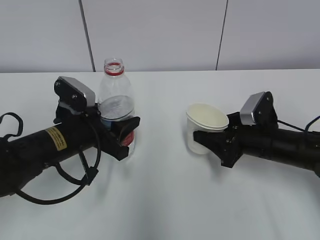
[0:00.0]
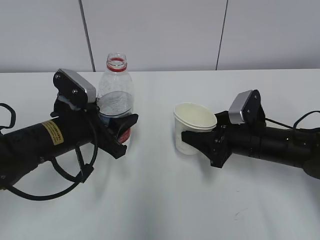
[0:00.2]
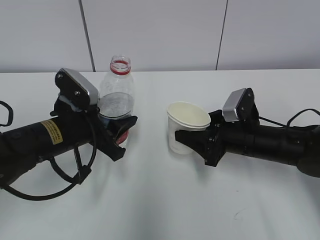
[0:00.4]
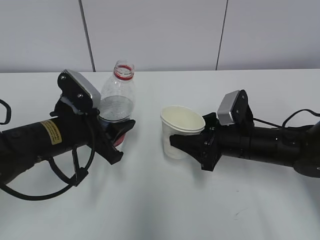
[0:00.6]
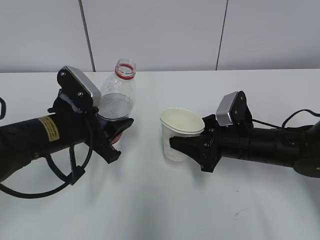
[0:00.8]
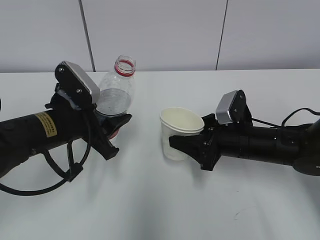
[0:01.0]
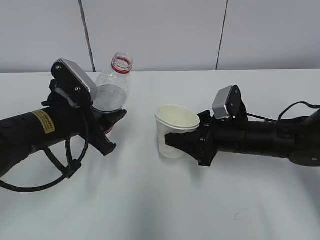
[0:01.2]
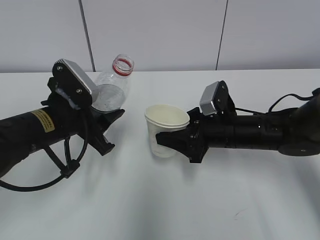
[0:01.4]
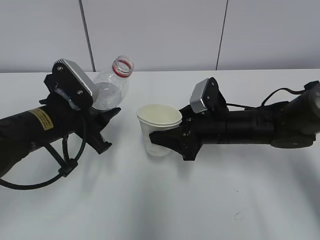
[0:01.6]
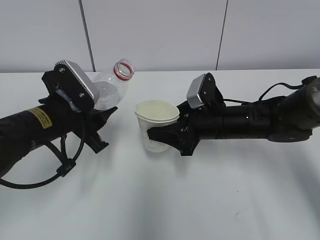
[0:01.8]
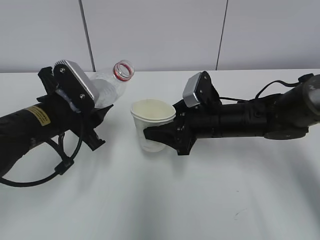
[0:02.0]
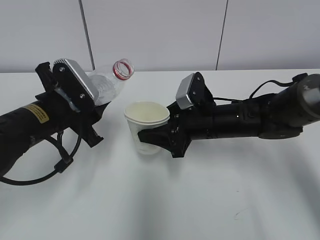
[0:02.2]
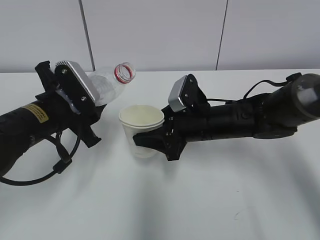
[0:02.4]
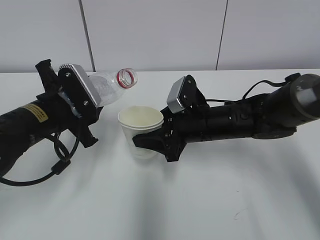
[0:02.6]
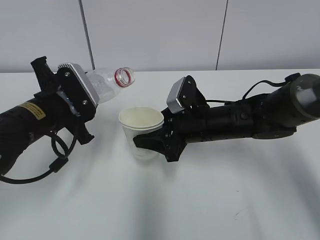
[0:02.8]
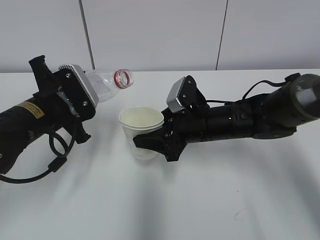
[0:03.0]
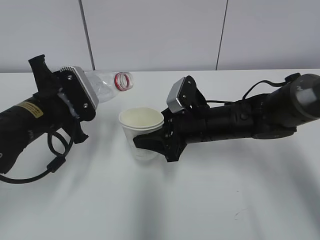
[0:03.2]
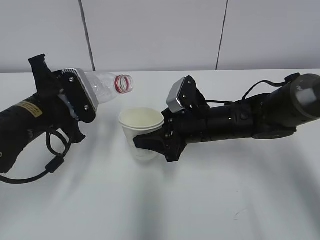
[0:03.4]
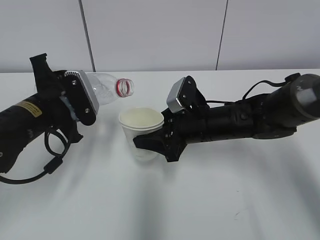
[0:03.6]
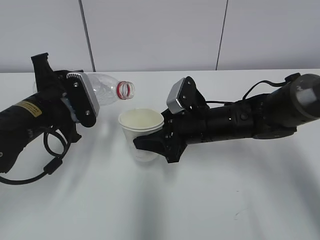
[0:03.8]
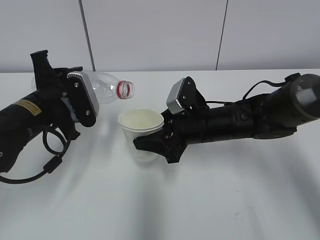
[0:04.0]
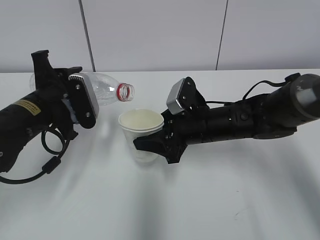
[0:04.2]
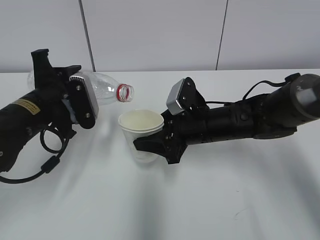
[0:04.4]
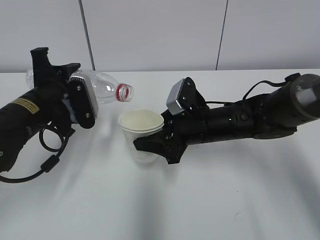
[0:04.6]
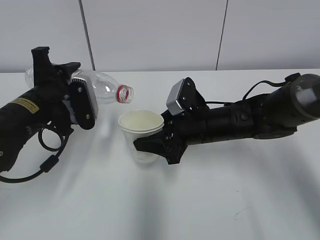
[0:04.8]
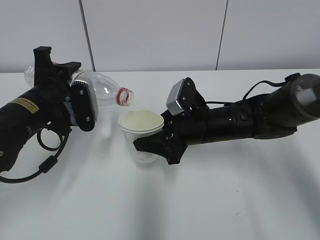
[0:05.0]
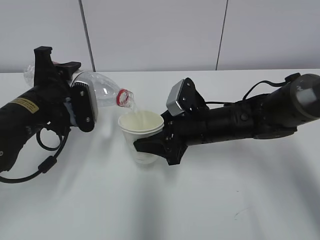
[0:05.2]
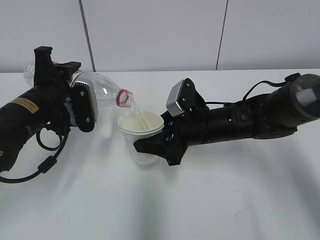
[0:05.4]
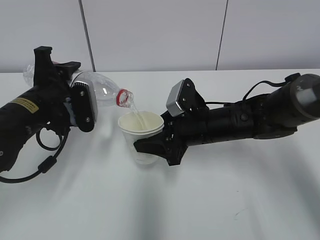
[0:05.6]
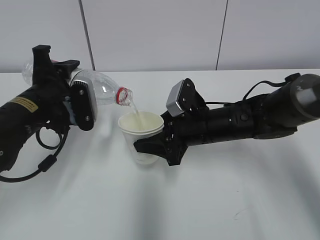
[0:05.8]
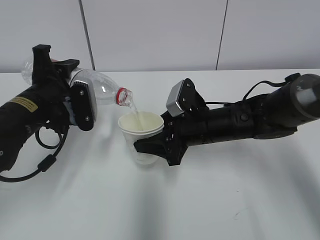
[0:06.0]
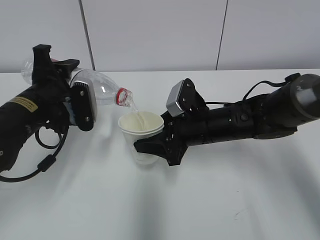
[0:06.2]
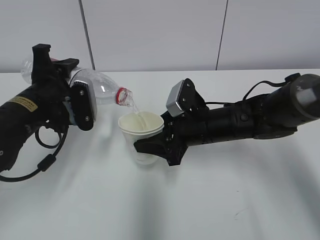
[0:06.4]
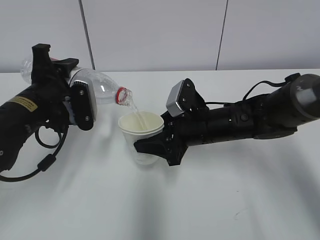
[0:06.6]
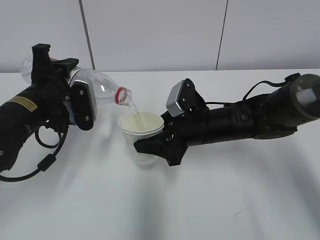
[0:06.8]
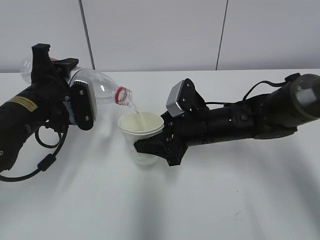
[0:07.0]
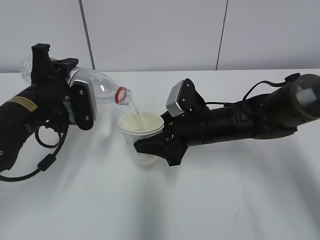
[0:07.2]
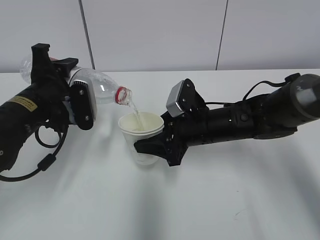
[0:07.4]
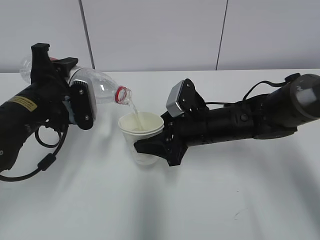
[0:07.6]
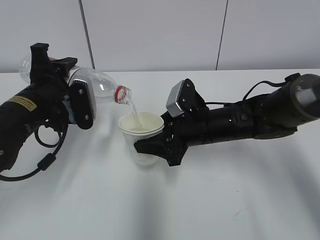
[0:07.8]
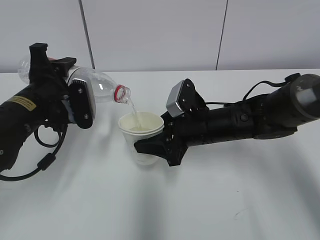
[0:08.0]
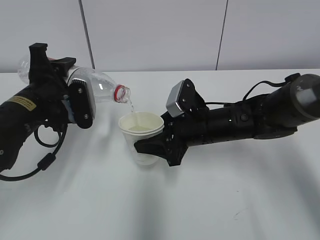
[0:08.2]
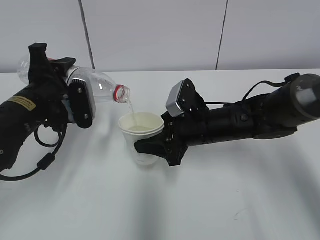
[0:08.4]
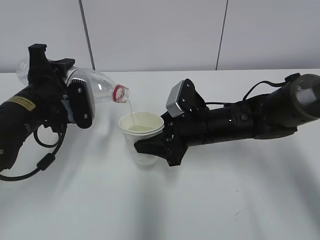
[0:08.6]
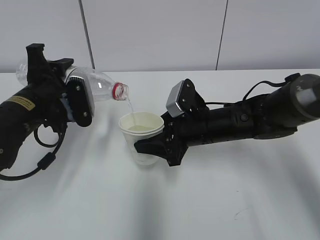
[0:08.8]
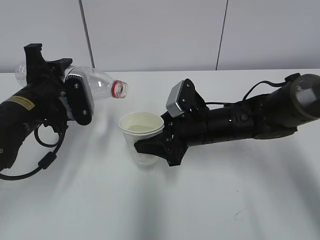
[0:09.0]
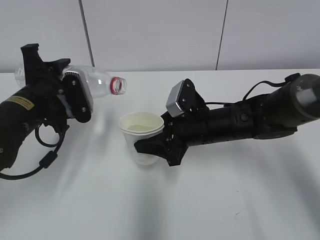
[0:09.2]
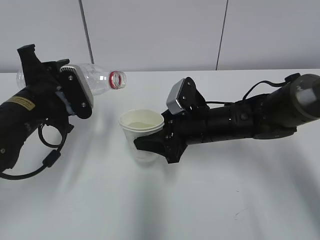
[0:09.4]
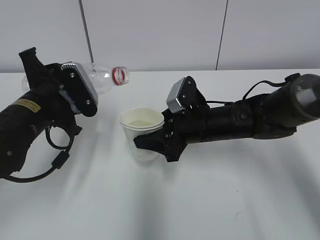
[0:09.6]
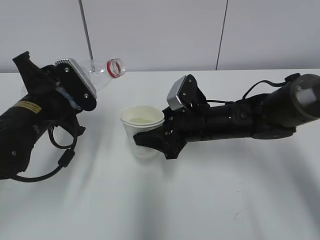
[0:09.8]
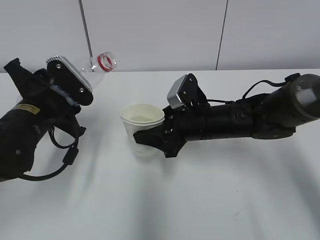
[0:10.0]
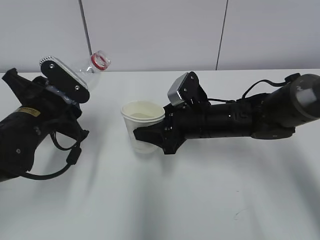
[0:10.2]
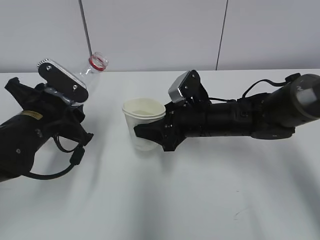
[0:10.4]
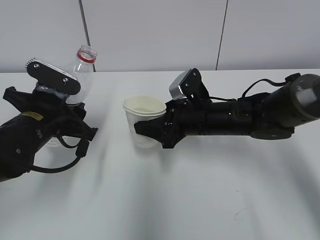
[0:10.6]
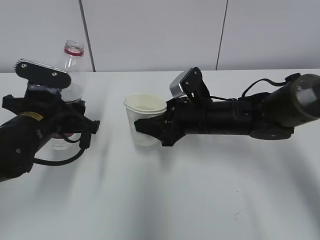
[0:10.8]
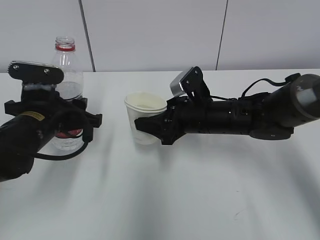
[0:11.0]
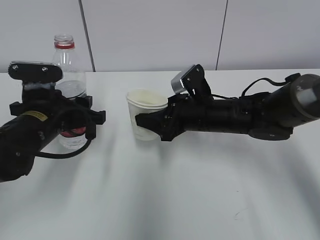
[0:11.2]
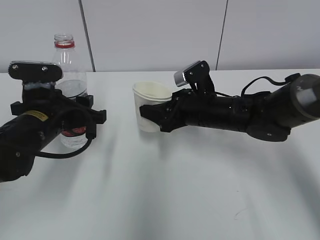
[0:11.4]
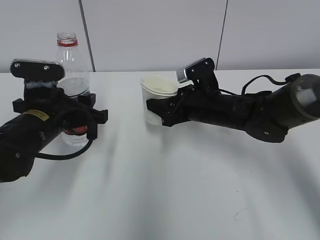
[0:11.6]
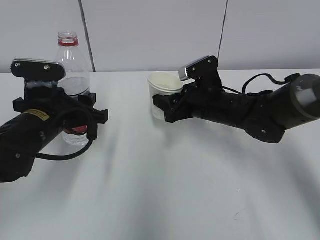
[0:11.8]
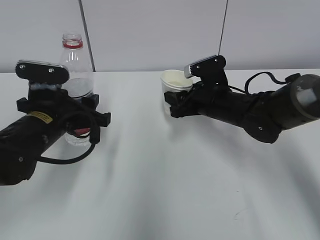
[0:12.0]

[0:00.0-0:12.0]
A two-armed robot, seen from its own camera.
Step, 0:00.0 to 0:02.0: Lift the paper cup with the right hand.
Step, 0:02.2 to 0:05.4: Fill water with the right hand.
Step, 0:02.2 to 0:05.4: Pour water with the left hand.
Step, 0:05.6 to 0:07.0: Collect water with the left hand.
Step, 0:07.2 to 0:10.0: Place the paper cup with the right hand.
0:00.0 to 0:01.6: The right gripper is displaced to the left by about 5 cm.
0:03.0 to 0:04.4: There are only small adjustments of the grippers.
0:04.4 to 0:06.0: The grippers make only small movements.
0:06.0 to 0:07.6: Both grippers stay put.
0:07.6 to 0:09.0: The grippers stay close to where they were, moving slightly.

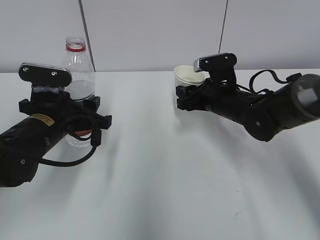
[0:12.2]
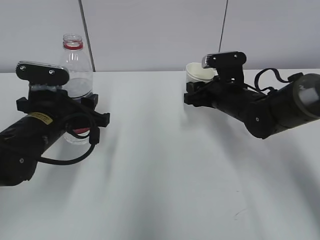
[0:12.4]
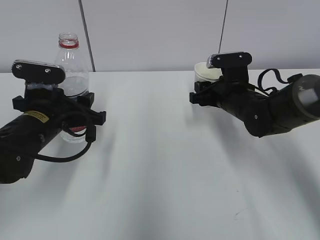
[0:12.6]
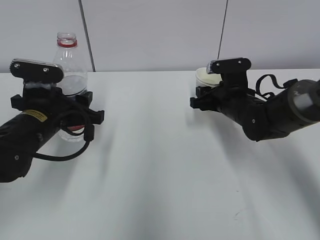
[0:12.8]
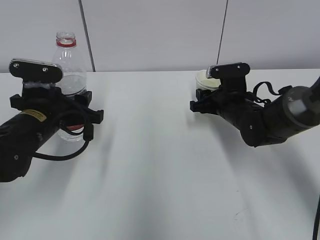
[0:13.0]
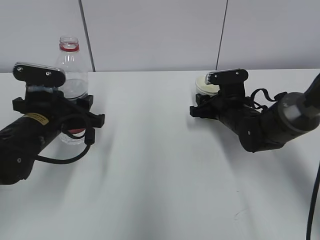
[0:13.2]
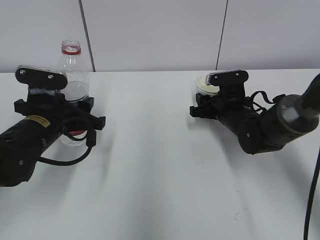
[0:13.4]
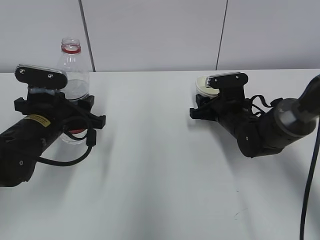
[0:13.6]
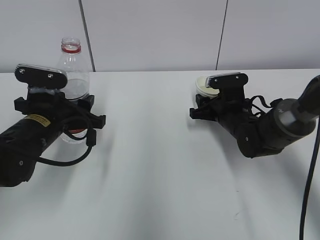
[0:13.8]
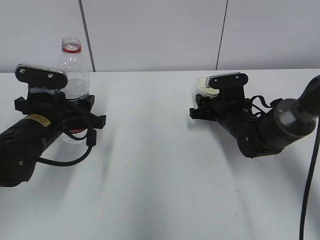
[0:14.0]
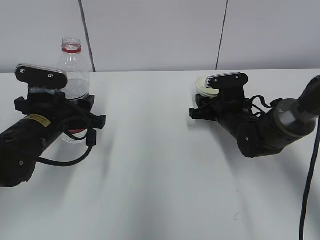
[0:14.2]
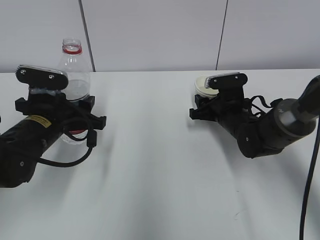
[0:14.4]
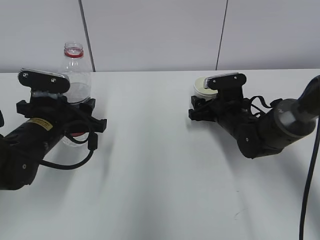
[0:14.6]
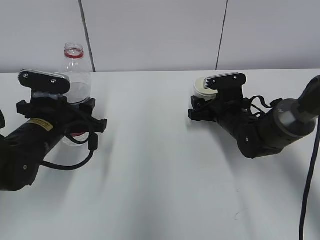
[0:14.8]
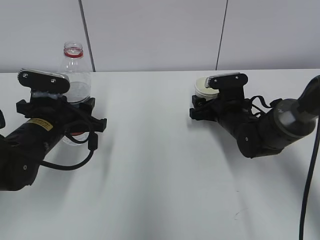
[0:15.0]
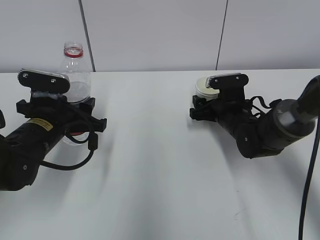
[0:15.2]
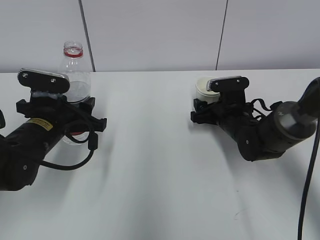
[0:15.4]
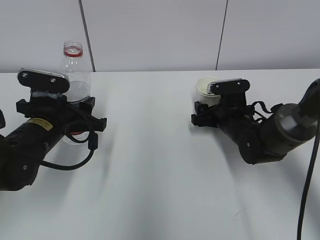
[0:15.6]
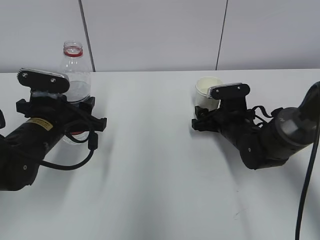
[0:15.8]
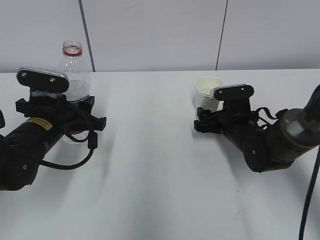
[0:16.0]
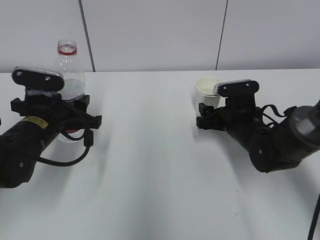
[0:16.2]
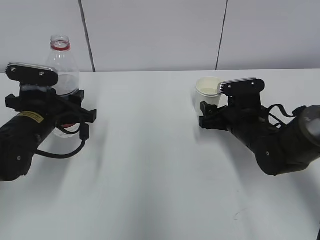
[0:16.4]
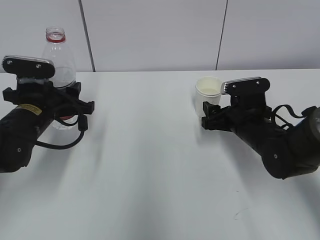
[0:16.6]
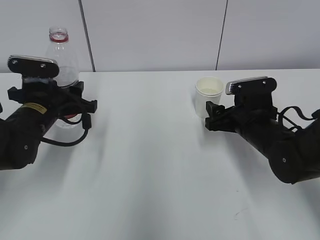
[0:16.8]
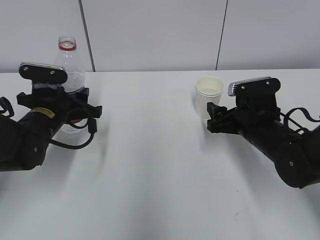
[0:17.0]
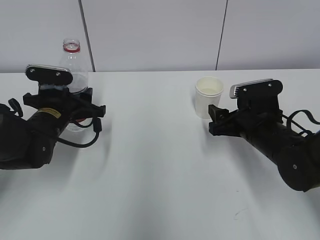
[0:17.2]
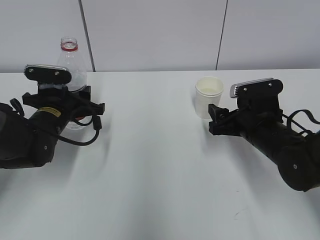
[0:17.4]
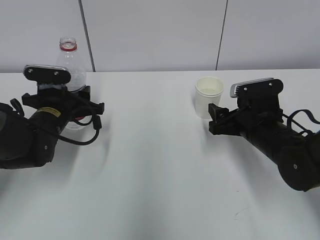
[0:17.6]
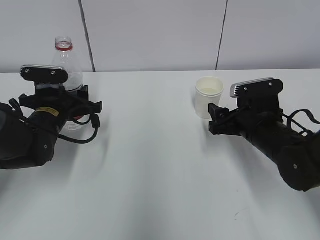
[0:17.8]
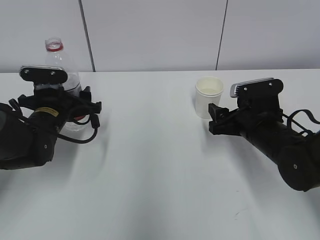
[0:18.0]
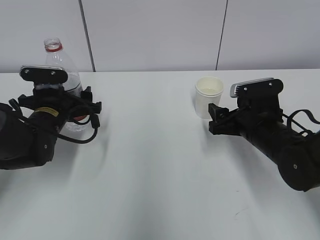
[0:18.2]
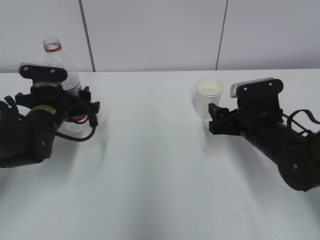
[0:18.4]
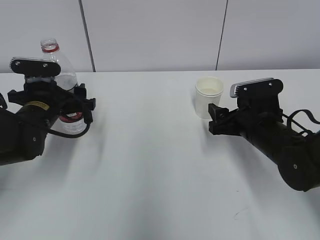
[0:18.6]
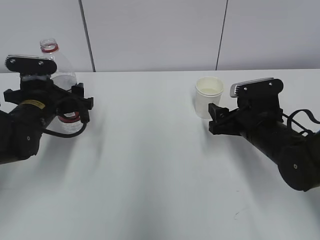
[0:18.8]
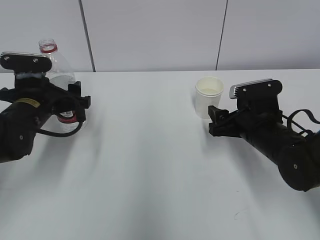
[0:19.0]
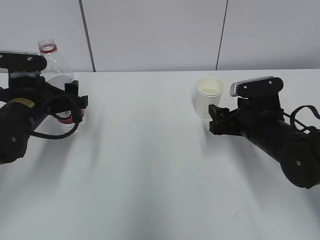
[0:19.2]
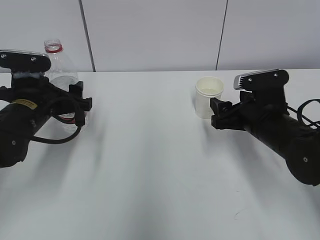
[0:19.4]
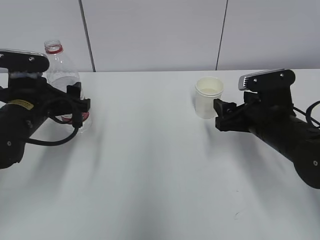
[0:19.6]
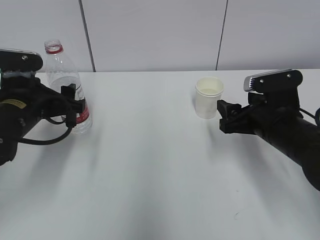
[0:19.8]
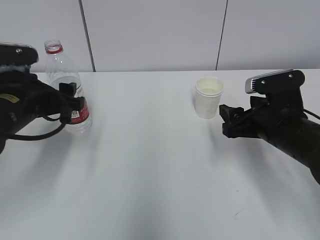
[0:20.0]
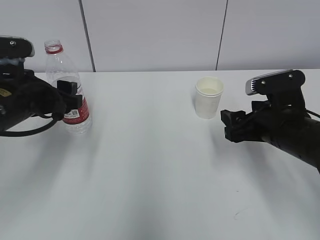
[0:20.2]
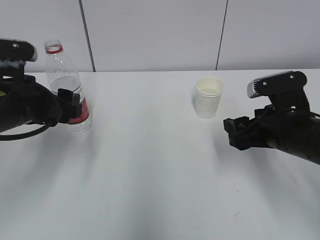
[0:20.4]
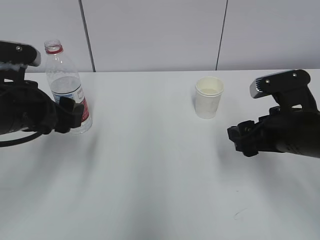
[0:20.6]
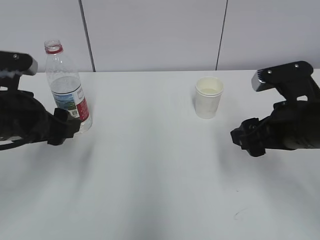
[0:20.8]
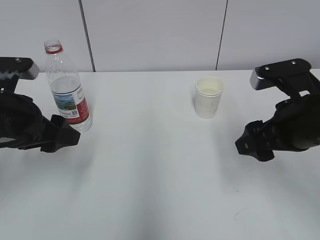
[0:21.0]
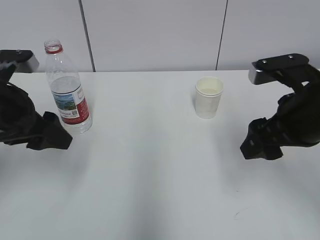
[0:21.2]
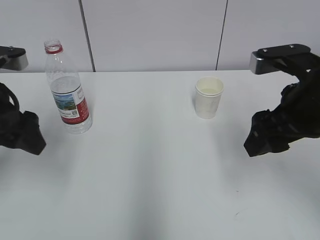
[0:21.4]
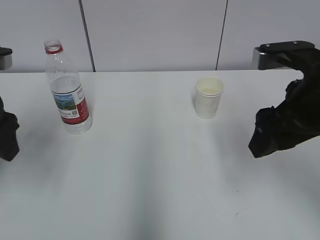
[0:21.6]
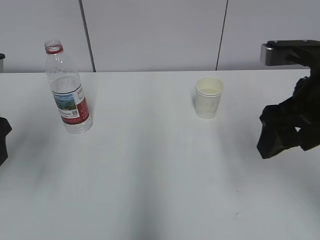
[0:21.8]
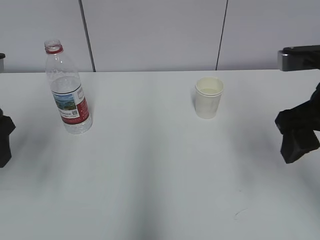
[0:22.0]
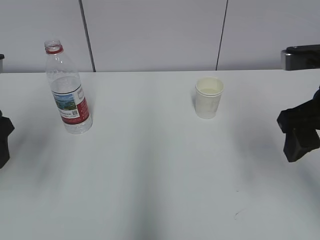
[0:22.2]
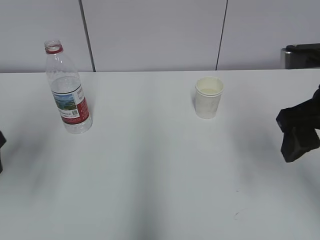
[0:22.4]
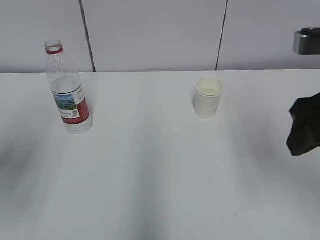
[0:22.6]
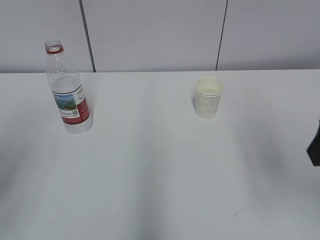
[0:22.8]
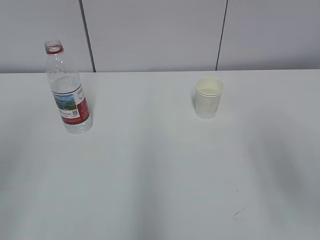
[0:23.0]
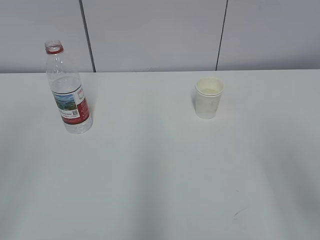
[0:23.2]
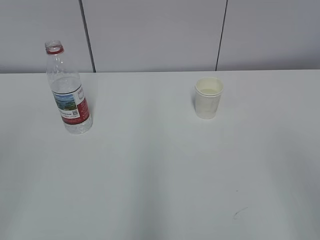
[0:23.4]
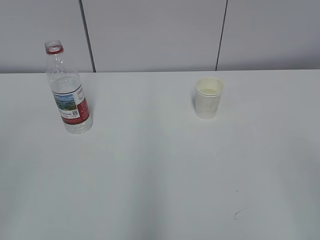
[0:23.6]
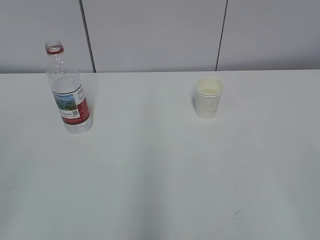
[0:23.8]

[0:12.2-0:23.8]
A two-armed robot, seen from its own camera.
0:12.2 to 0:13.6: The right gripper travels downward by approximately 5 cm.
0:13.6 to 0:15.0: The right gripper opens.
0:15.0 to 0:16.6: The right gripper goes about 5 cm backward.
0:16.6 to 0:18.0: The left gripper moves approximately 5 cm.
0:18.0 to 0:19.4: The left gripper goes approximately 5 cm upward.
0:19.4 to 0:21.0: The right gripper is displaced upward and backward by roughly 10 cm, while the left gripper shifts roughly 5 cm backward.
0:21.0 to 0:22.4: Both grippers travel together upward, roughly 5 cm.
0:22.4 to 0:23.8: The grippers both shift backward by some 25 cm.
